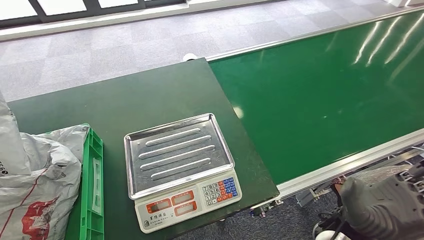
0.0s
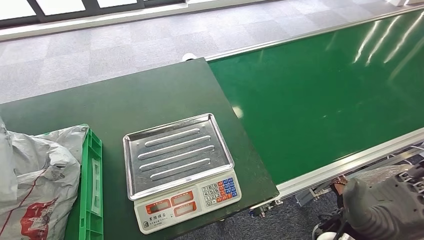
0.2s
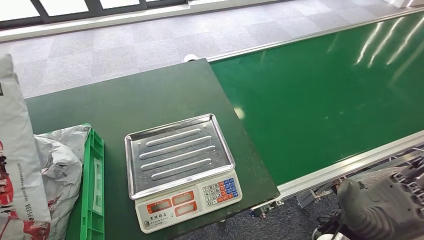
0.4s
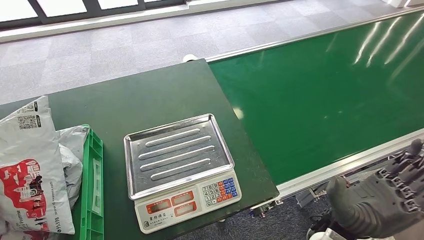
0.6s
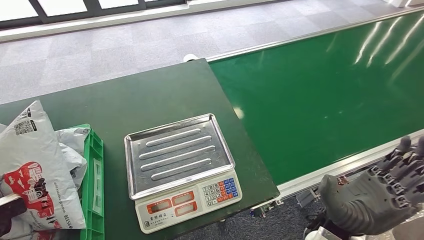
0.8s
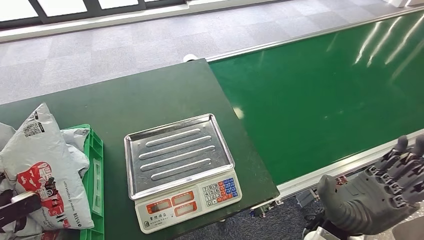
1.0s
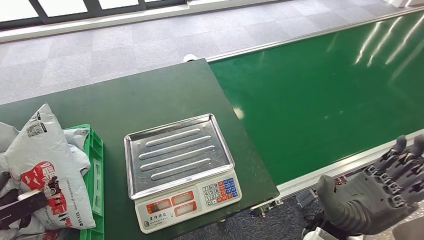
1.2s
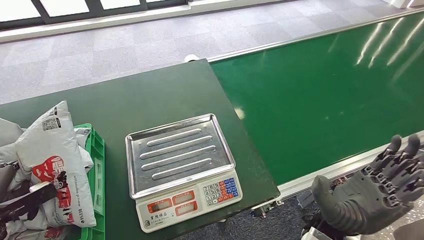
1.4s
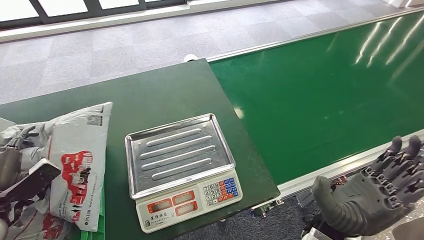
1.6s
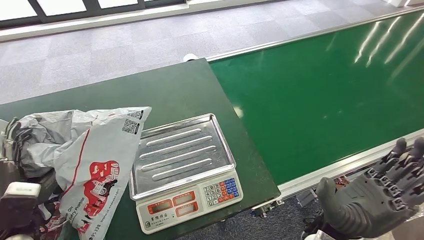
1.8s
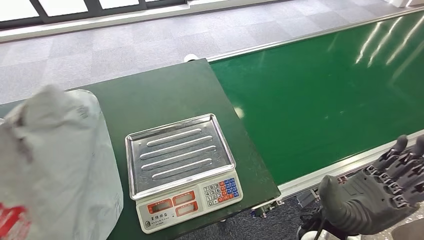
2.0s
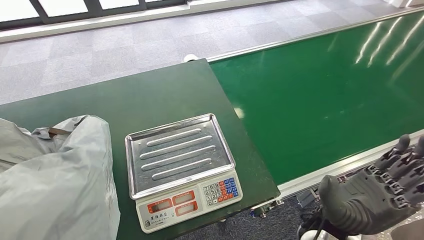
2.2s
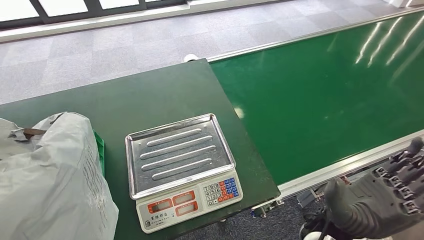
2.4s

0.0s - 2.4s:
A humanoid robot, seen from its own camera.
Step, 0.0s - 2.4s: Place the parcel into the delivery box.
0.0s - 1.2s: The left hand travels downward by approximately 30 cm.
1.2s - 2.4s: The left hand heads to the right, covering approximately 25 cm.
